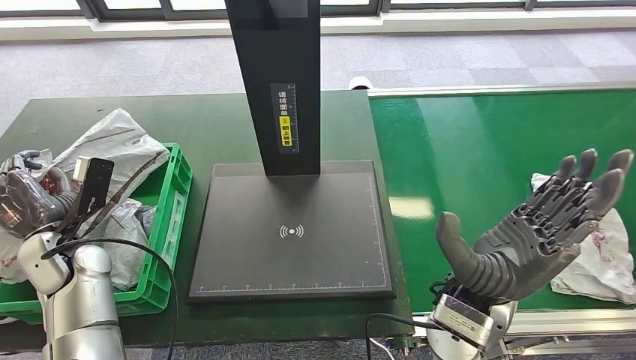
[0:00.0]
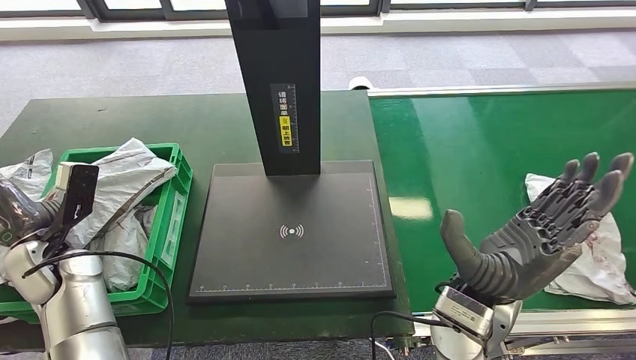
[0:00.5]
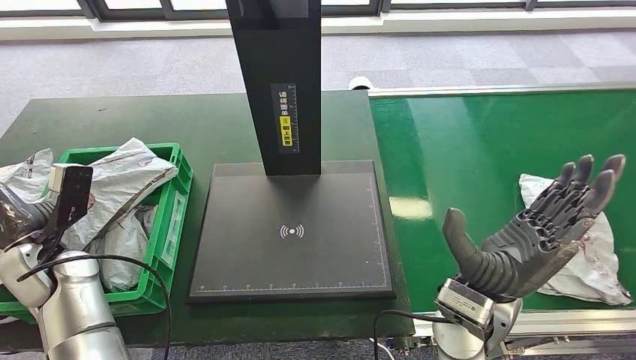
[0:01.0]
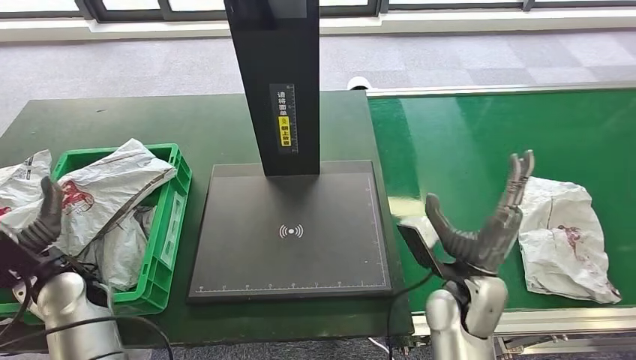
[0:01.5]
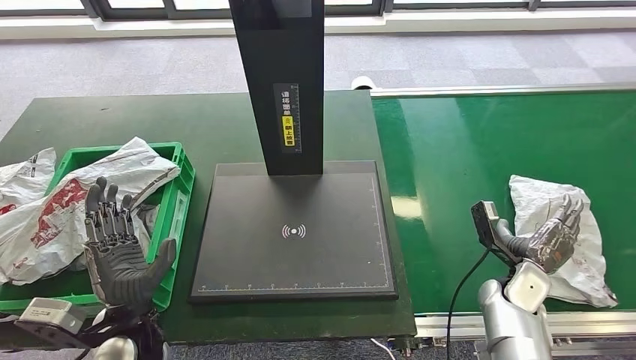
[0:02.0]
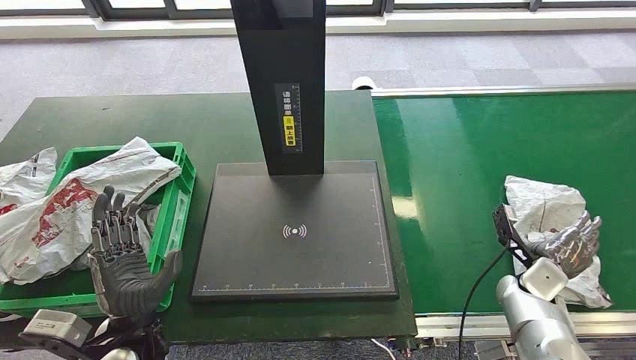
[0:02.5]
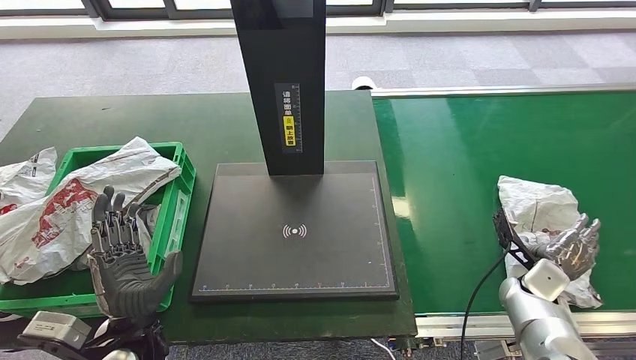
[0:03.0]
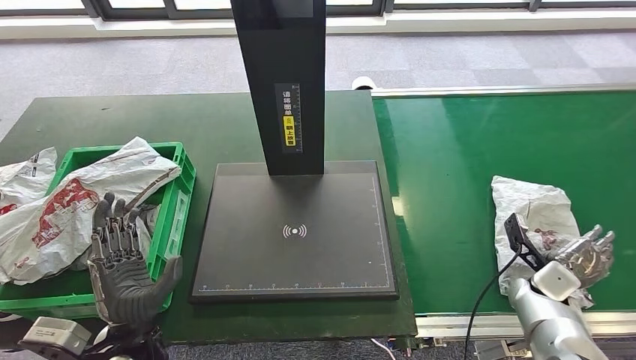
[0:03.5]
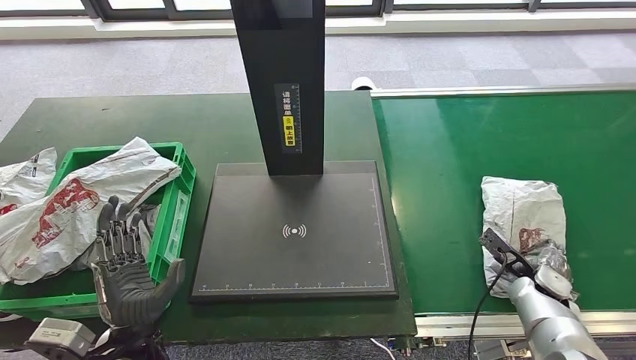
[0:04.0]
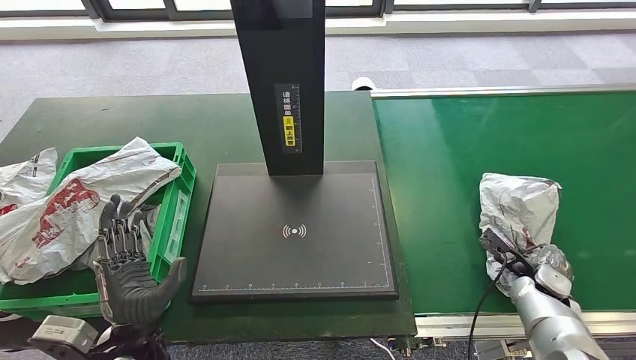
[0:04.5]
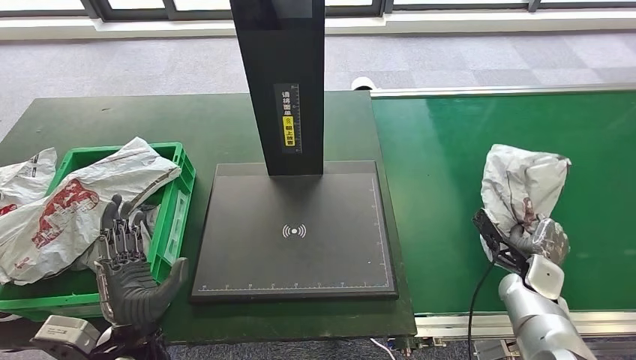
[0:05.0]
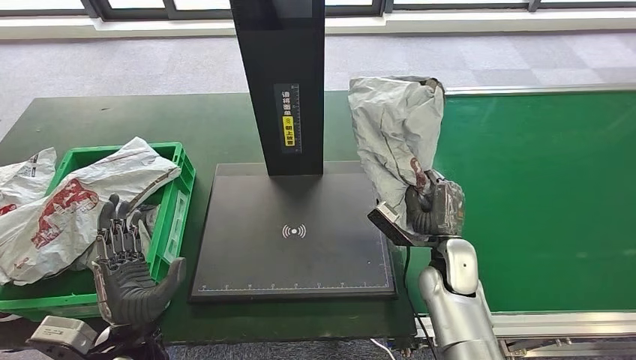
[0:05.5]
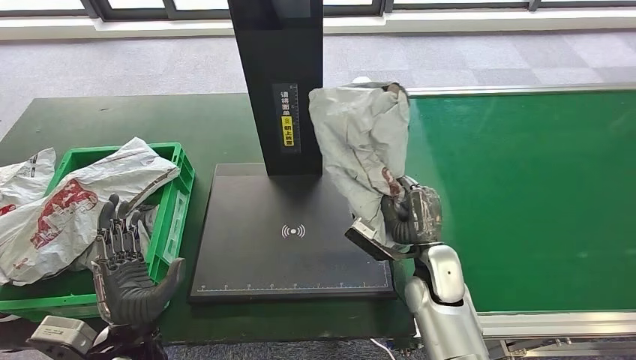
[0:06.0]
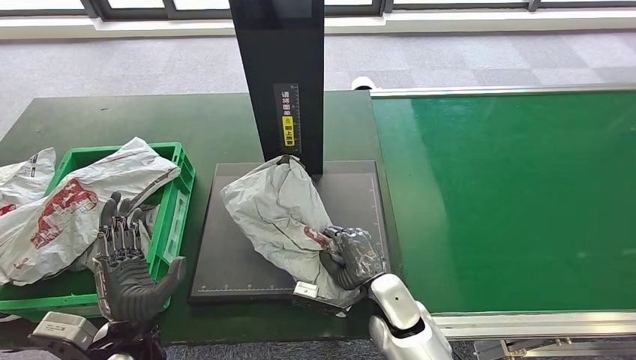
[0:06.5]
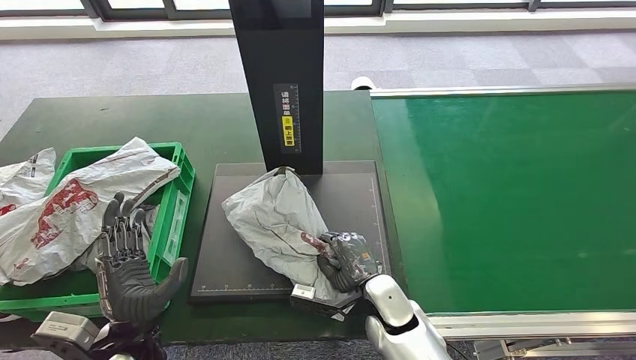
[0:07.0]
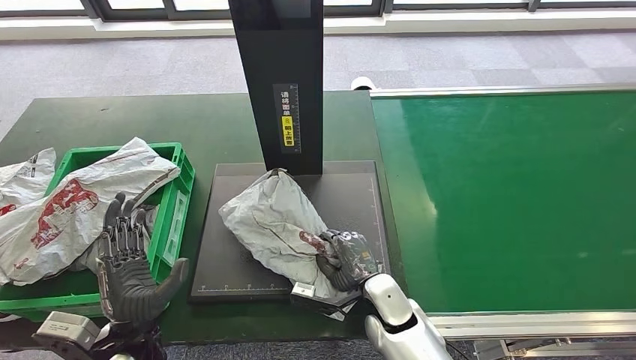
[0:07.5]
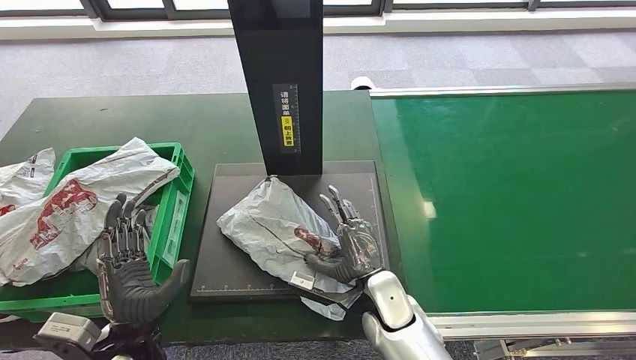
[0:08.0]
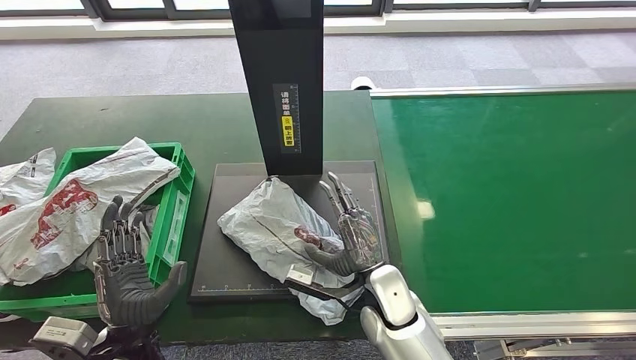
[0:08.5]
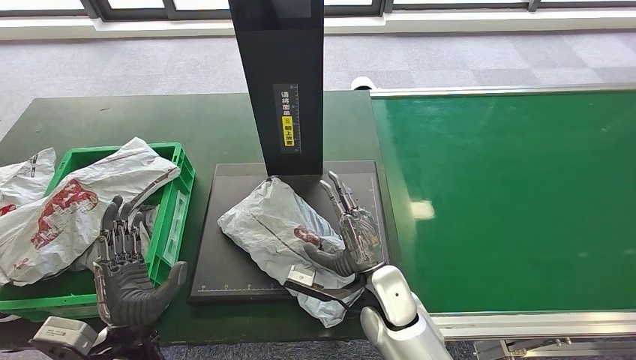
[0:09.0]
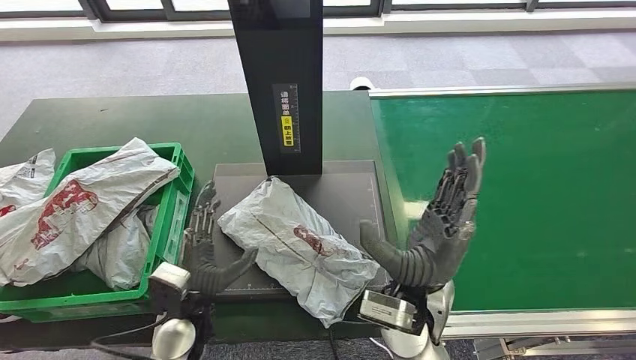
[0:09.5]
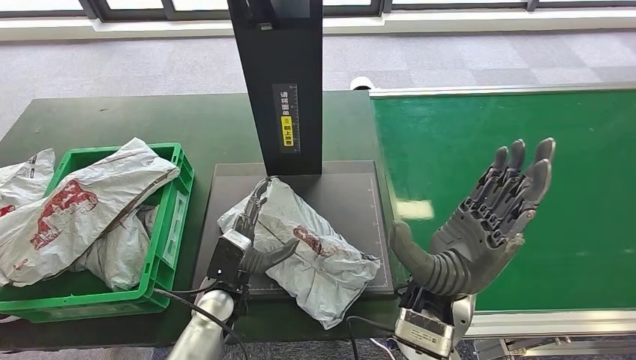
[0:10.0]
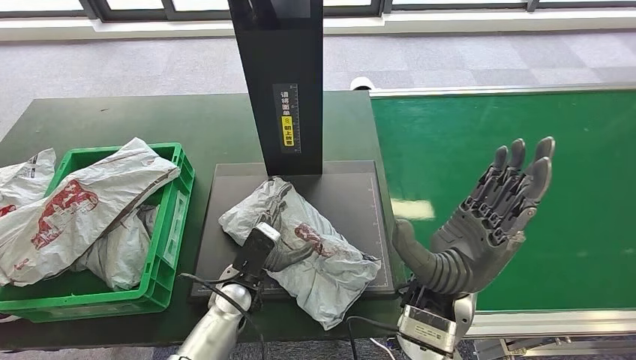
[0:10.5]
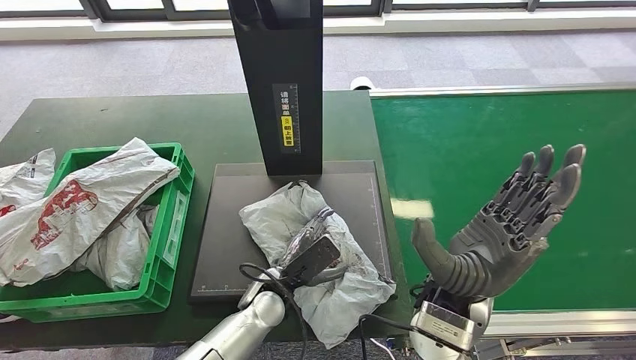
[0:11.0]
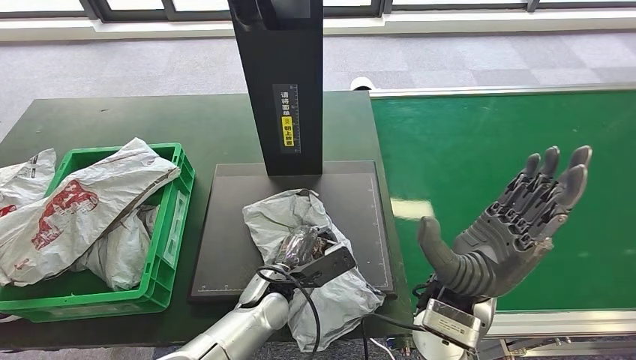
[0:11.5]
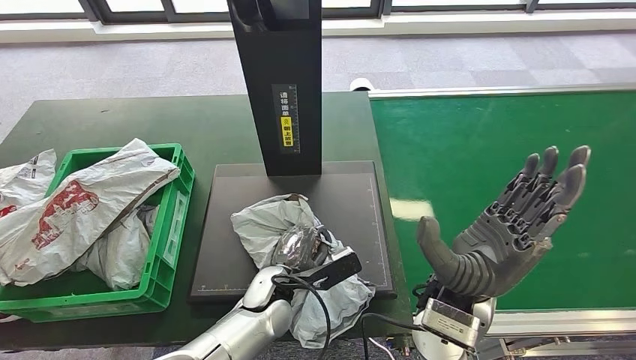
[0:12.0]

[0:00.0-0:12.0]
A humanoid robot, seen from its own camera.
Step, 0:01.5 to 0:05.5: Pick up the parcel from the conveyor belt.
Step, 0:06.0 to 0:08.0: Place the parcel onto the inbound machine.
0:02.0 to 0:04.0: The right hand is displaced to the right by approximately 5 cm.
0:04.0 to 0:06.0: The right hand shifts approximately 20 cm to the left.
0:06.0 to 0:08.0: The right hand goes approximately 10 cm to the left.
0:08.0 to 0:10.0: The right hand is displaced upward by some 15 cm. The left hand moves to the right and forward, about 15 cm.

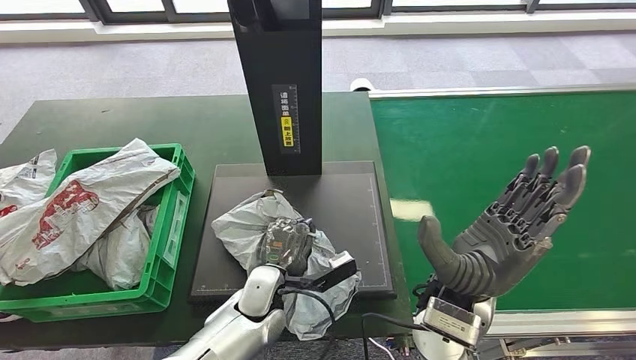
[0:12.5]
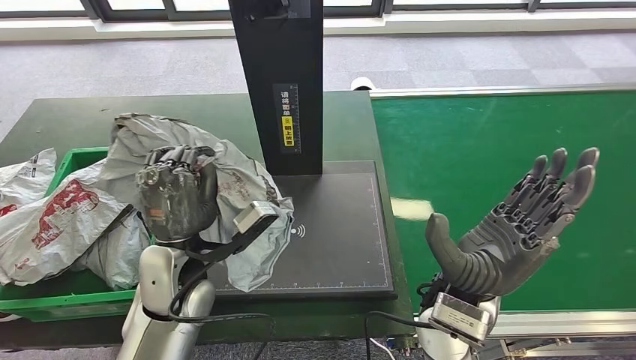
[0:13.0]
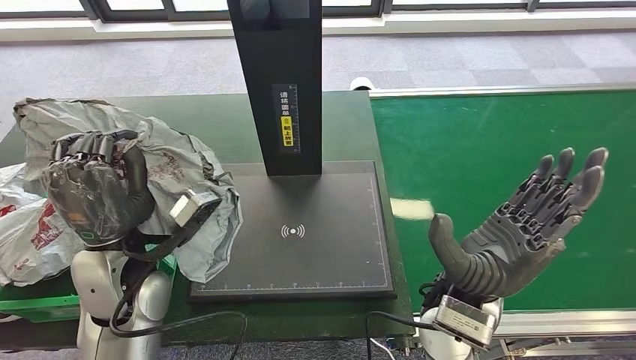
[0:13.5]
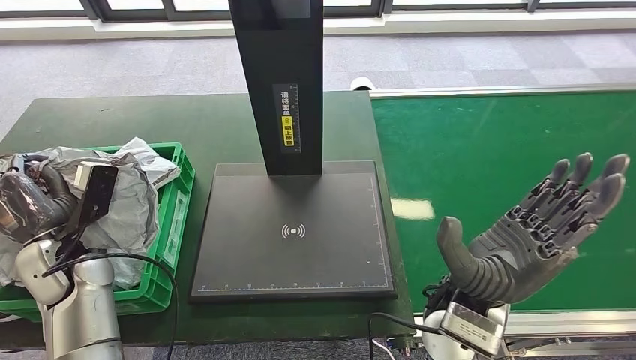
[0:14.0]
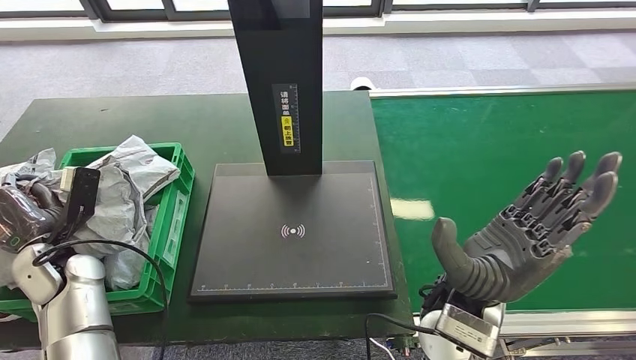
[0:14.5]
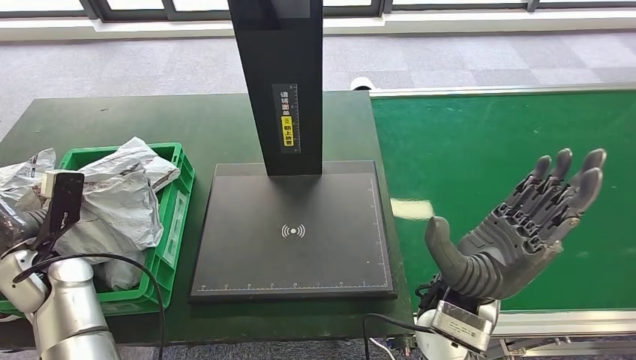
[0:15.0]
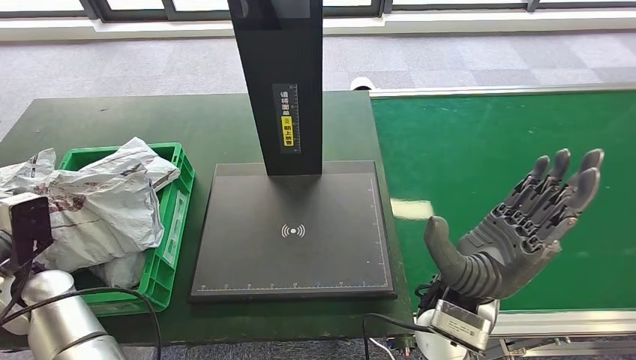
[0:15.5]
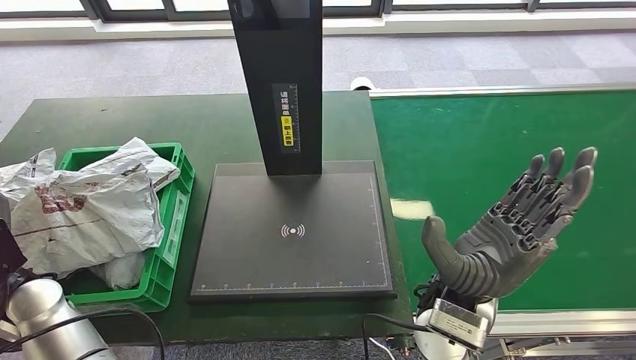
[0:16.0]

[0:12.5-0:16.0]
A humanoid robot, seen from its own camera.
Step, 0:13.5 to 0:16.0: Place the parcel into the delivery box.
0:14.5 to 0:16.0: The left hand shifts approximately 5 cm backward.
